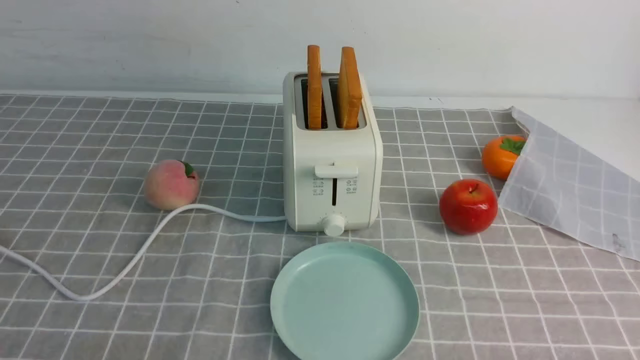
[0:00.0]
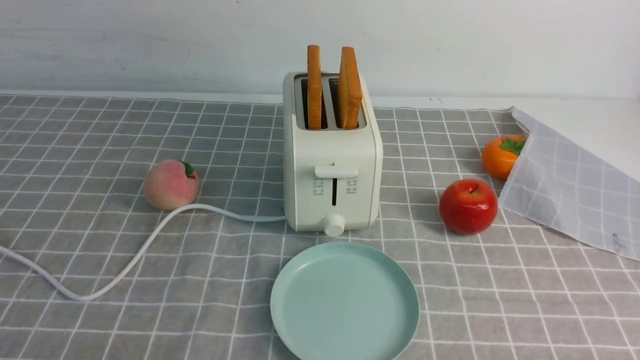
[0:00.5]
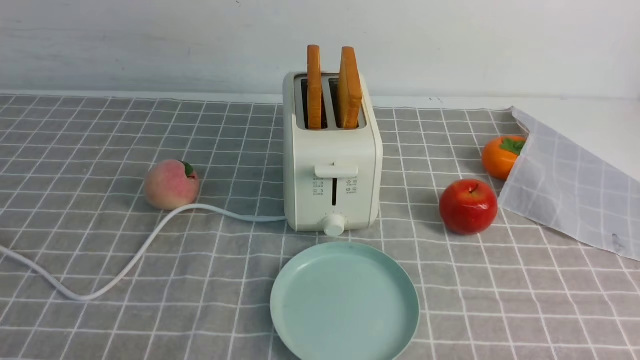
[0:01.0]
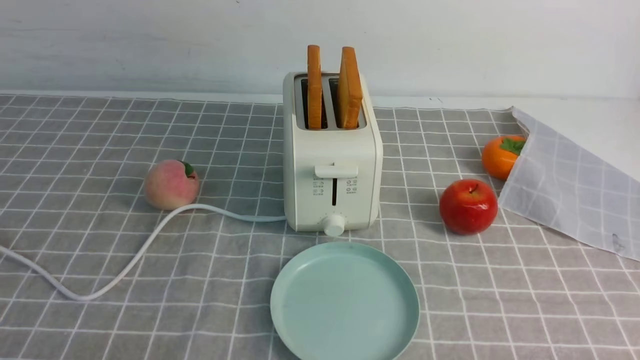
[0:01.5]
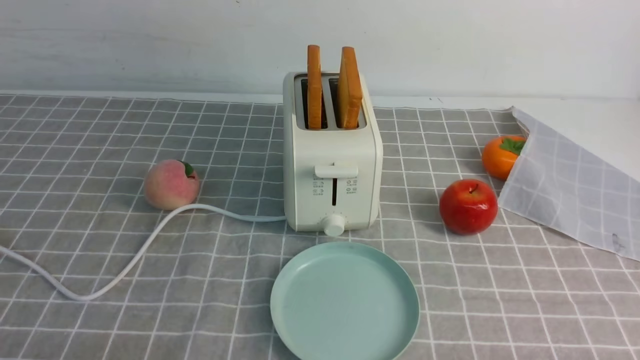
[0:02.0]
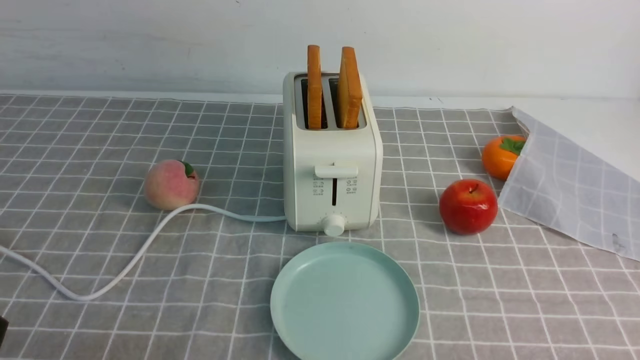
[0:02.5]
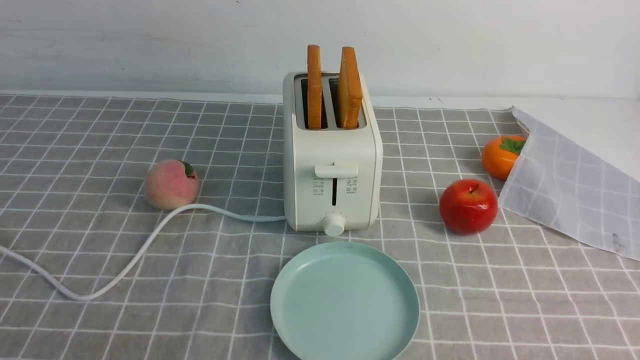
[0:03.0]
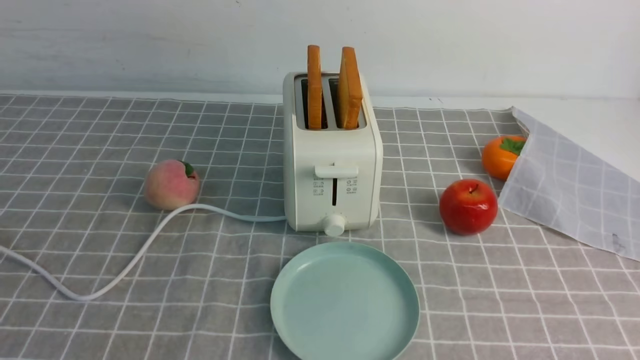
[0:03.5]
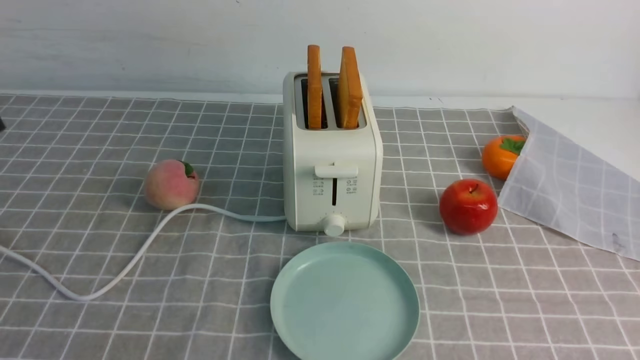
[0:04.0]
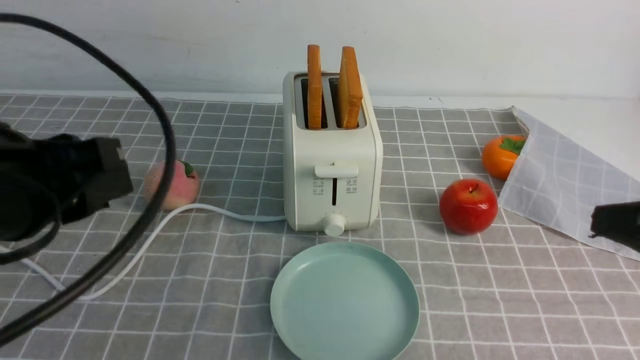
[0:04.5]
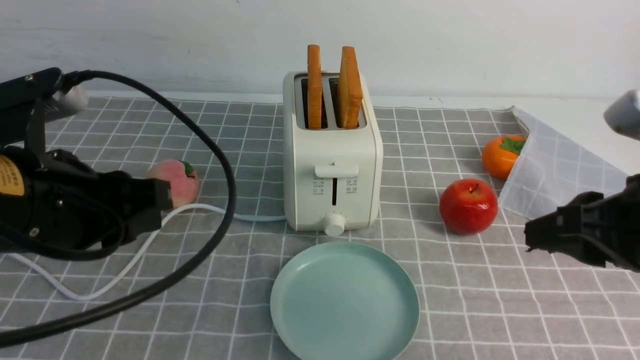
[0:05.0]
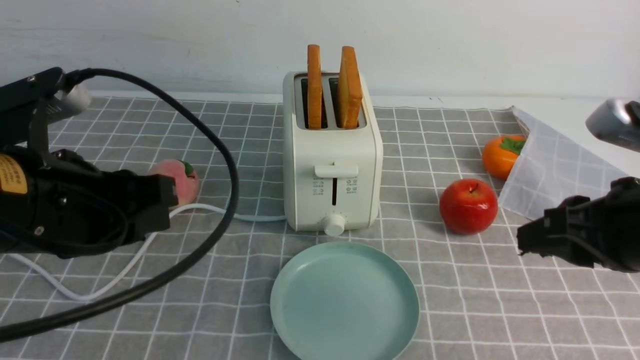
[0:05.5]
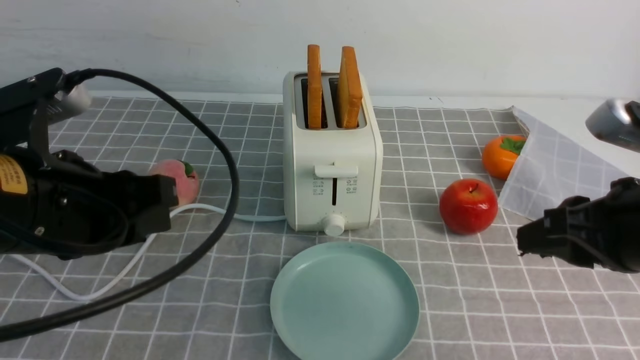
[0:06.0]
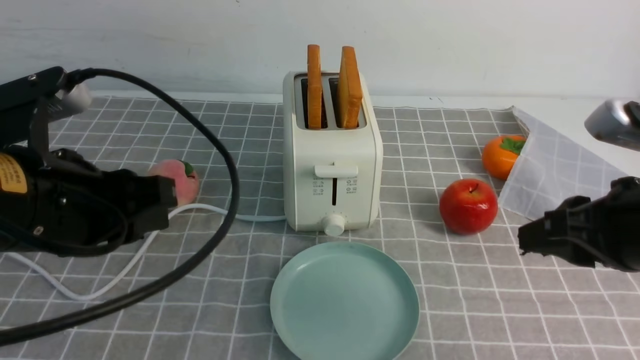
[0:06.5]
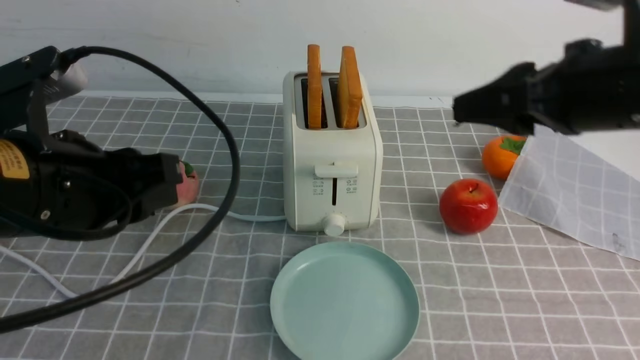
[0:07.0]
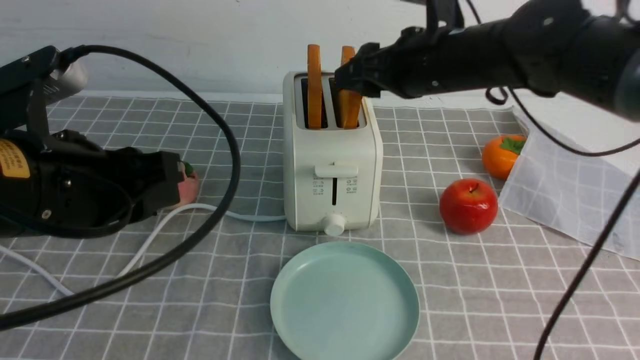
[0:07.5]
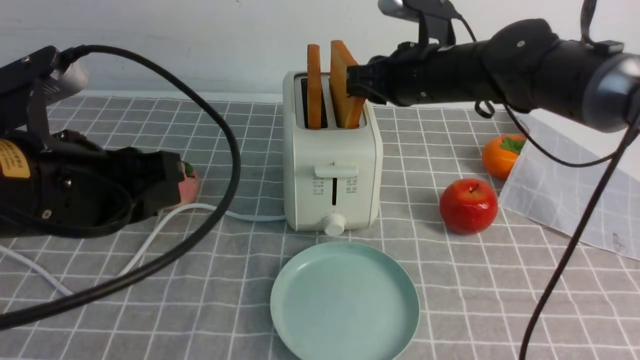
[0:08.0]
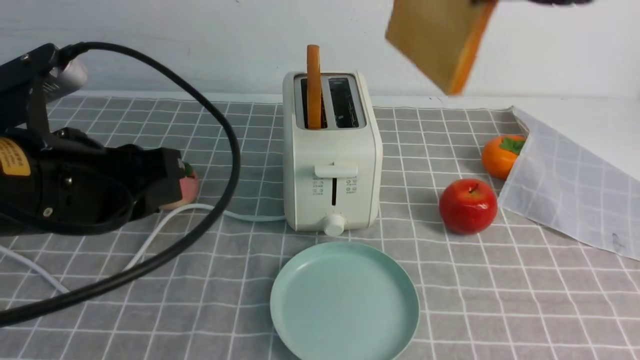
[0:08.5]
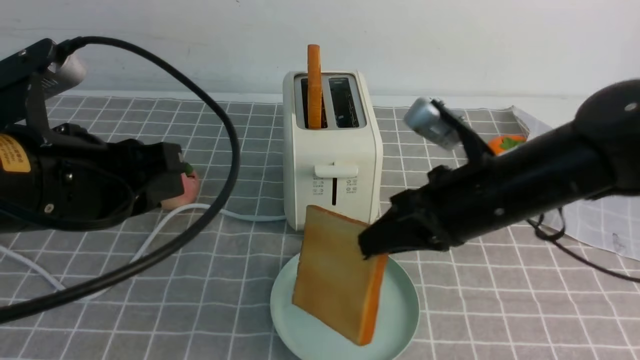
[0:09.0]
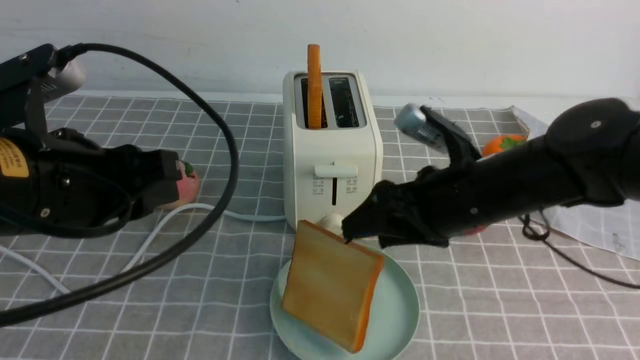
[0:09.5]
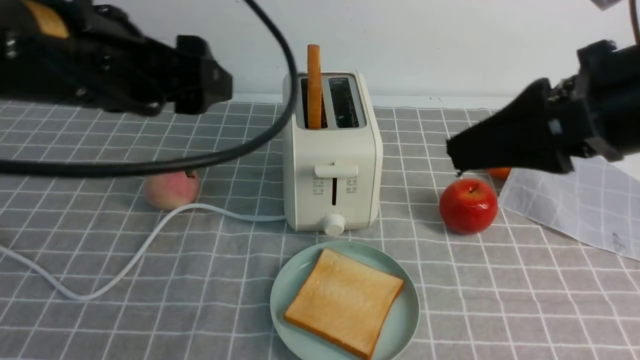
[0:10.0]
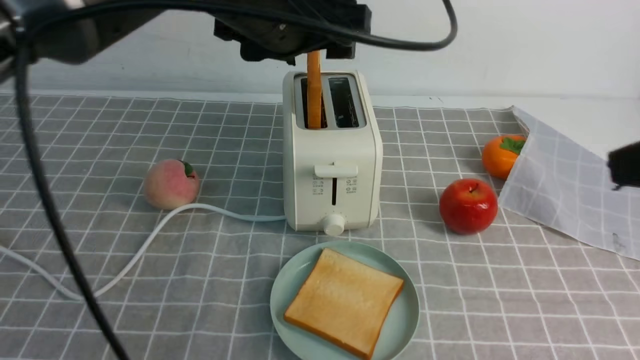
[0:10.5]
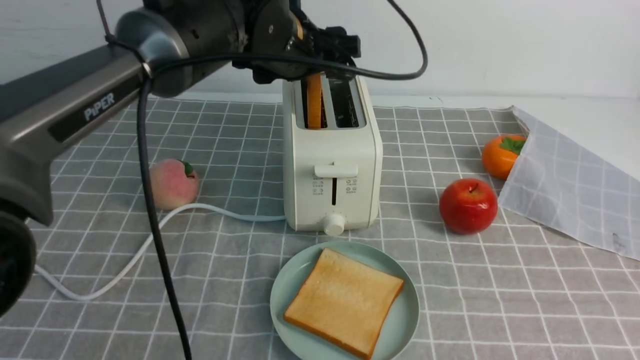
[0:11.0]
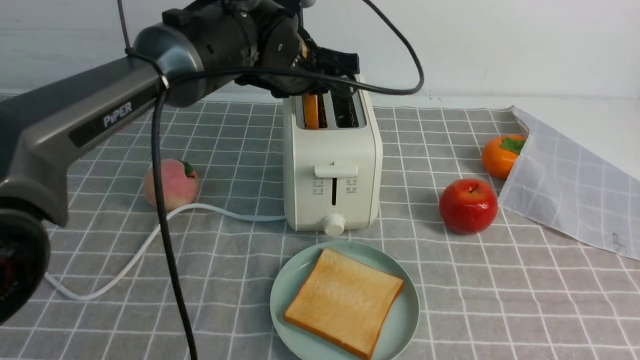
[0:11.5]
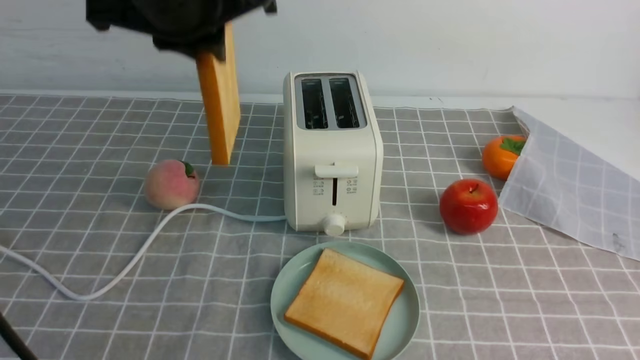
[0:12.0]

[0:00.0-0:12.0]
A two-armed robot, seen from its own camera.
Task of the whole recording: take toasted bread from bread machine on grey coffee table place on plate.
Step, 0:00.0 to 0:08.0: use the right arm to take out a slice of bread.
Step, 0:08.5 to 0:09.5: use the right arm to put a slice of bread into the plate.
Step, 0:10.0 to 0:11.5: use the left arm to take out a slice of bread.
0:04.0 to 0:06.0: The left gripper travels downward and forward by roughly 10 cm. Meanwhile the right gripper is displaced forward and downward by roughly 15 cm.
0:06.0 to 0:08.0: The right gripper is displaced forward and to the left by roughly 25 cm, and opens and closes again.
0:08.0 to 0:10.0: The left gripper moves upward and forward, approximately 10 cm, and opens up, while the right gripper shifts roughly 20 cm backward, and opens.
0:10.0 to 0:12.0: The right gripper moves backward and to the right, about 15 cm, and closes; the left gripper moves forward and to the right, about 10 cm, and closes up.

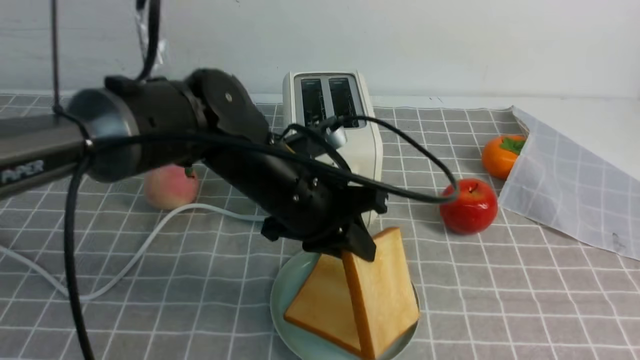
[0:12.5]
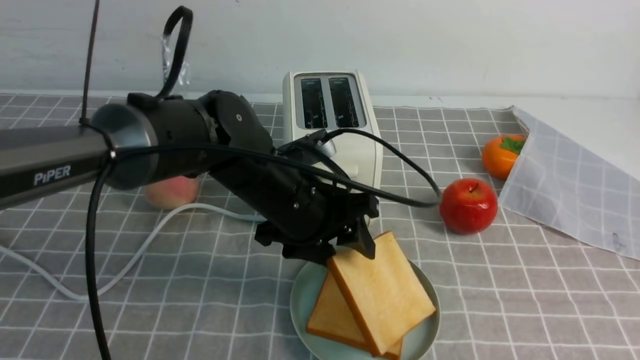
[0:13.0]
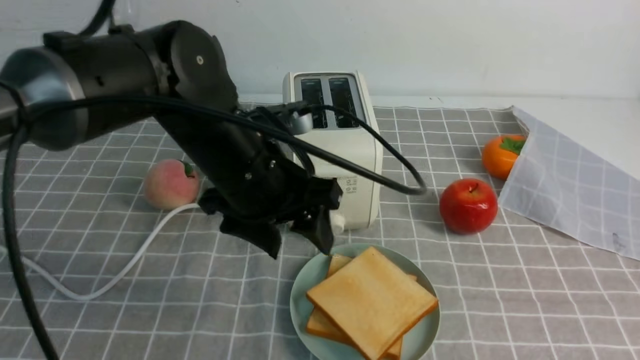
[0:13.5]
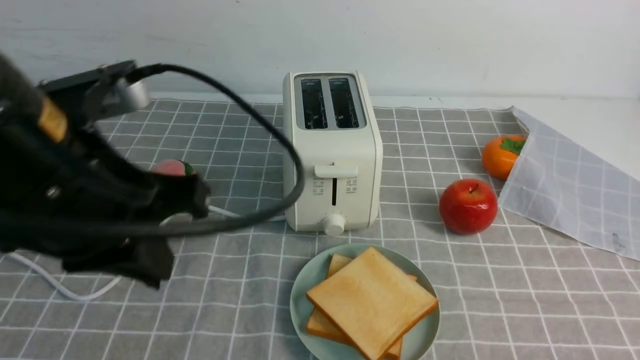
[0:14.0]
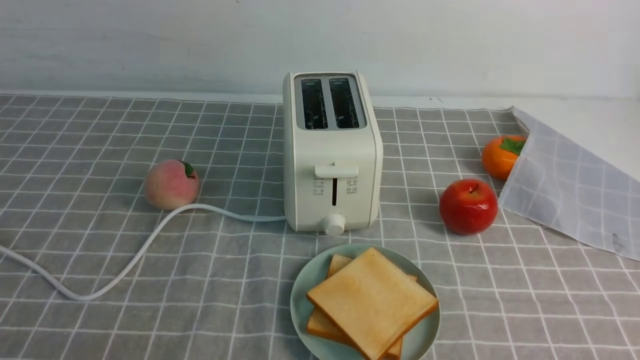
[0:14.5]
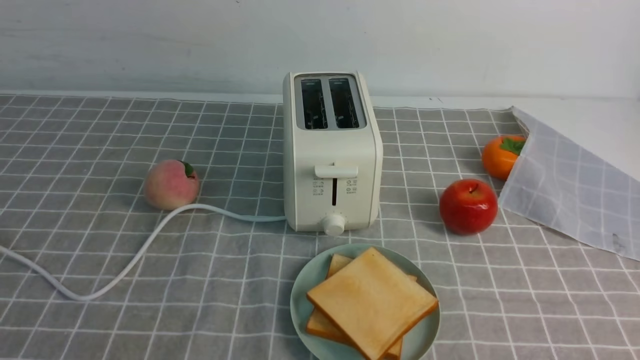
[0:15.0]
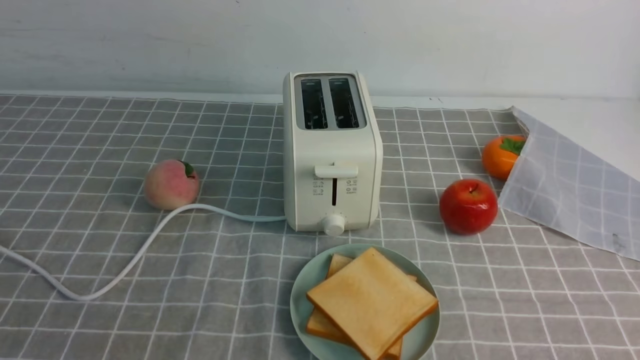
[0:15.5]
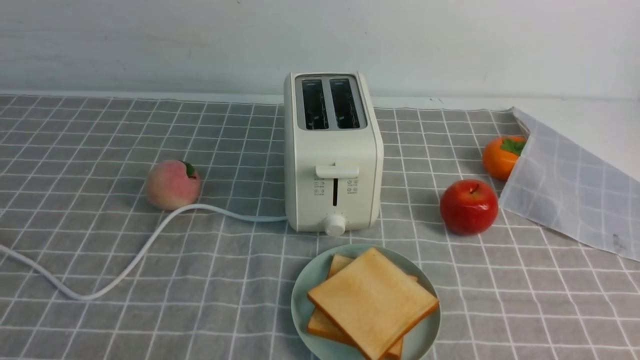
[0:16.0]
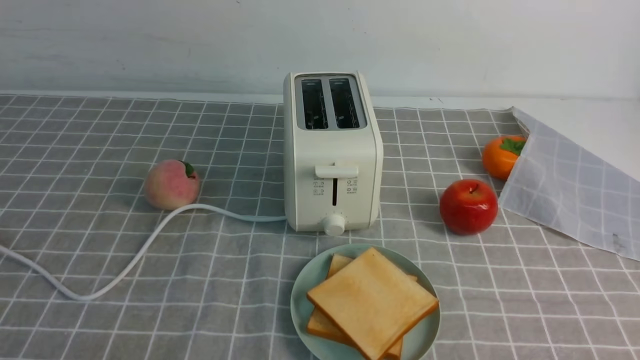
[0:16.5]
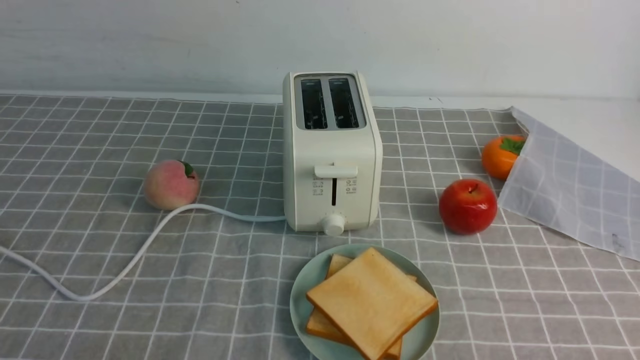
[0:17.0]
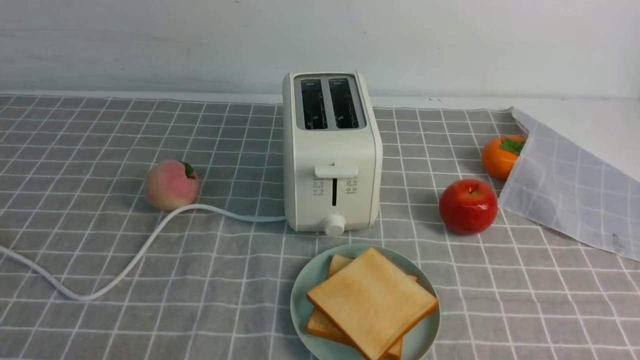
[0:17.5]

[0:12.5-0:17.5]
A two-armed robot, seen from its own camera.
Task of the whole recording: take toasted bread from bread machine on grey coffee table place on plate.
Step, 0:12.5 to 0:13.5: use the left arm to put a slice of bread into the empty plate.
0:12.5 to 0:15.0: The left gripper heads backward and to the left, covering approximately 40 cm, and opens, then closes again. The right gripper is displaced downward and backward by about 15 cm, and closes.
